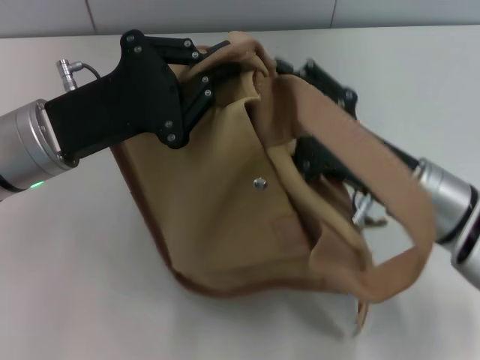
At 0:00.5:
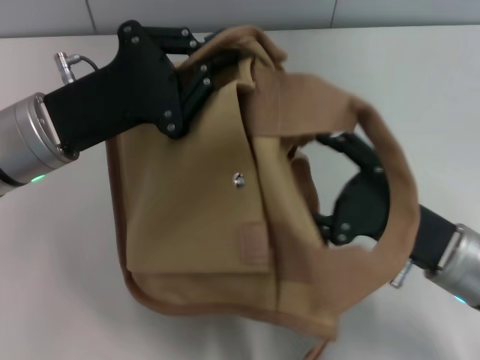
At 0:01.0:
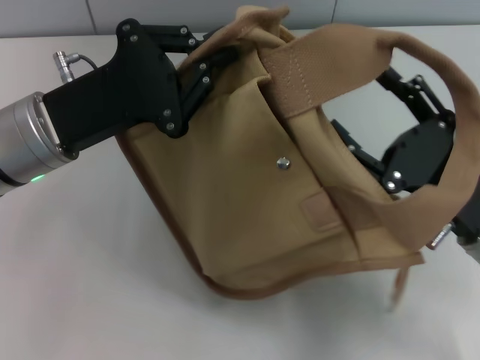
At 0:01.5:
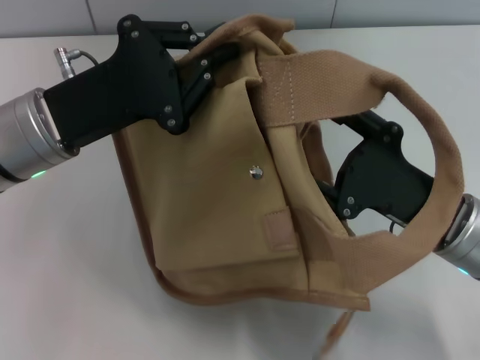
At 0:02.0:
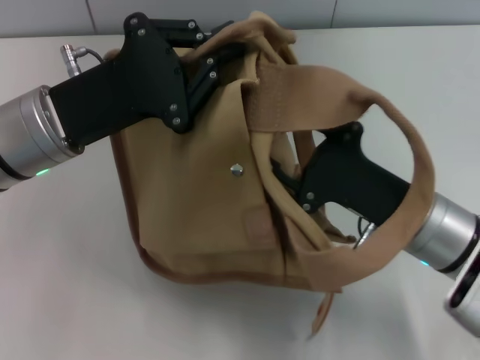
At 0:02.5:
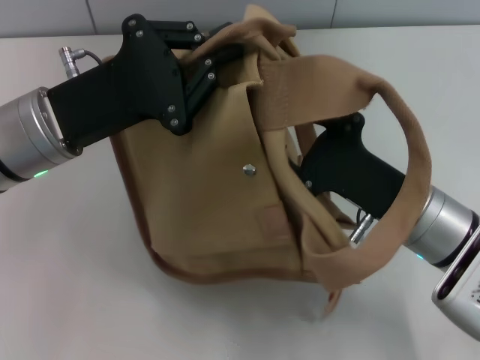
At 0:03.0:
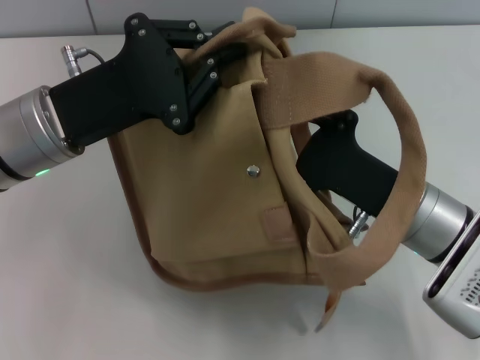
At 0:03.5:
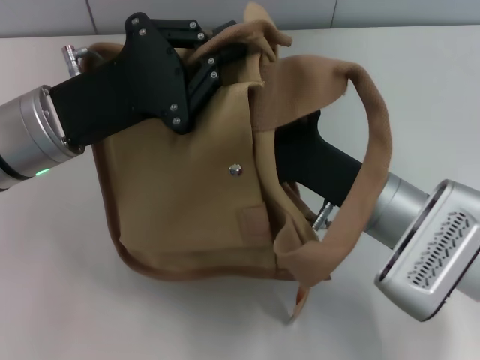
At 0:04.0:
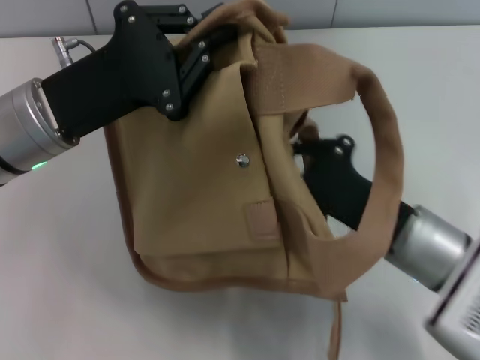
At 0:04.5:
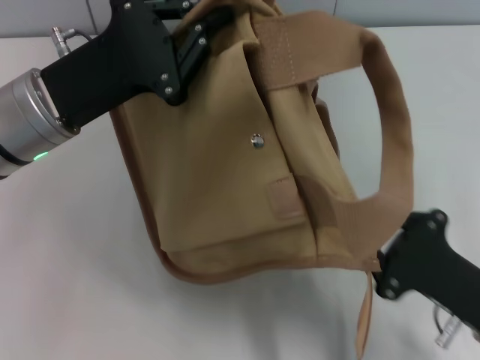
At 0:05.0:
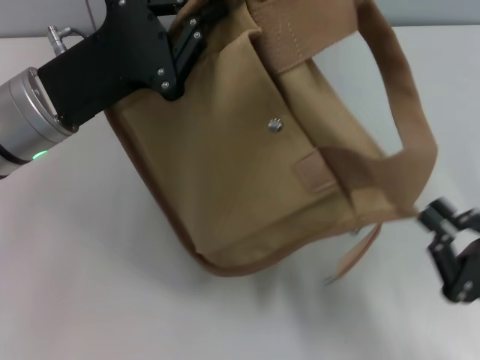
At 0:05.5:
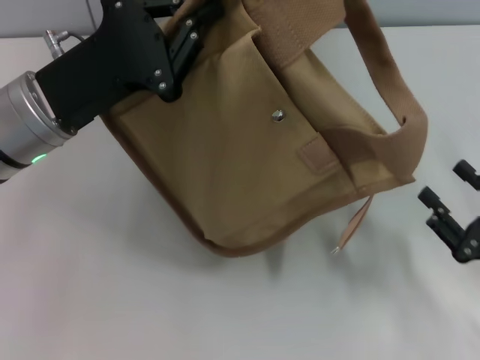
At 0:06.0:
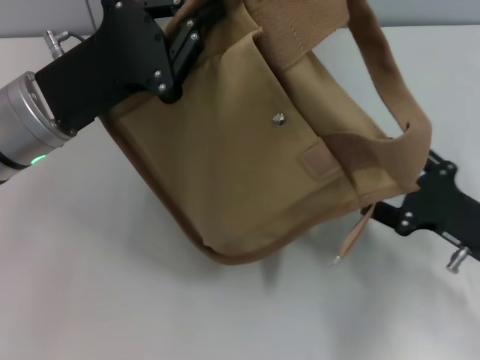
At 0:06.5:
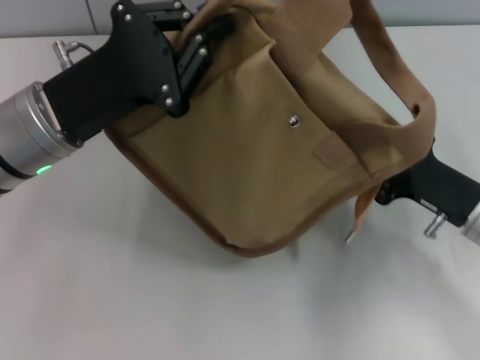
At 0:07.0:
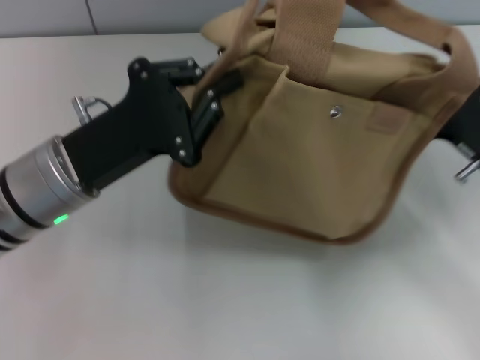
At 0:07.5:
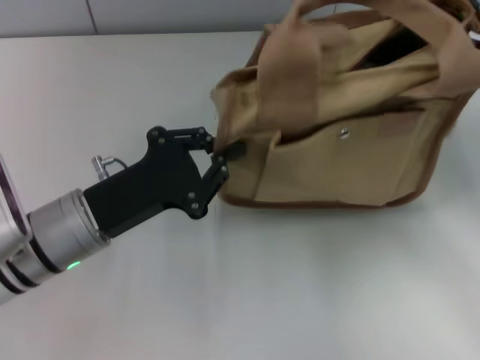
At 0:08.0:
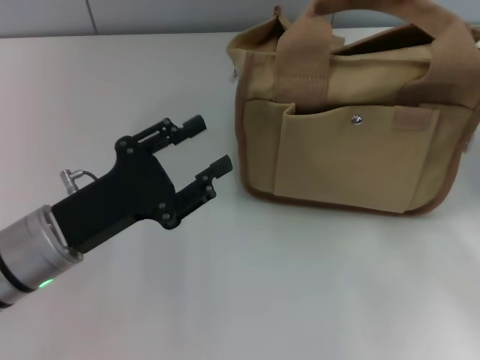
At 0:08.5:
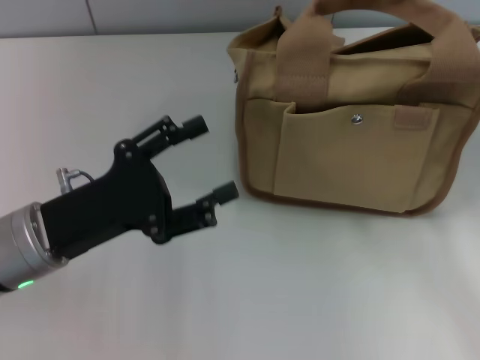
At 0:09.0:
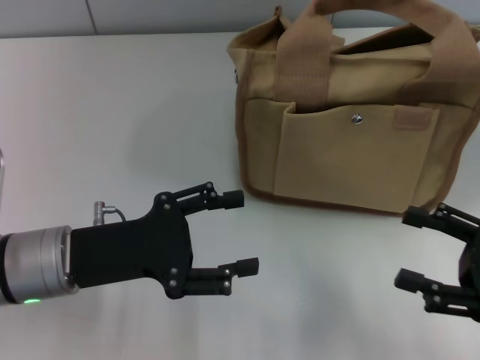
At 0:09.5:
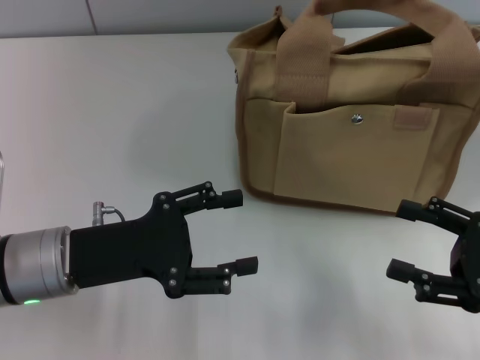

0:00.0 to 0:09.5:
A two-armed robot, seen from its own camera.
Step, 0:00.0 to 0:05.0: Pull open the zipper with your right hand.
Step, 0:05.5 to 0:07.5: Grab the bag with your left hand.
0:02.0 to 0:04.0: The right gripper closes.
0:04.0 to 0:05.5: The right gripper is displaced to the right and backward by about 15 cm, and opens up.
0:05.5 to 0:07.5: The right gripper heads forward and upward, covering roughly 15 cm, and closes its fingers; the left gripper is displaced downward and backward by approximately 10 cm.
0:07.5 to 0:09.5: The right gripper moves backward, some 10 cm, and opens. The left gripper opens.
